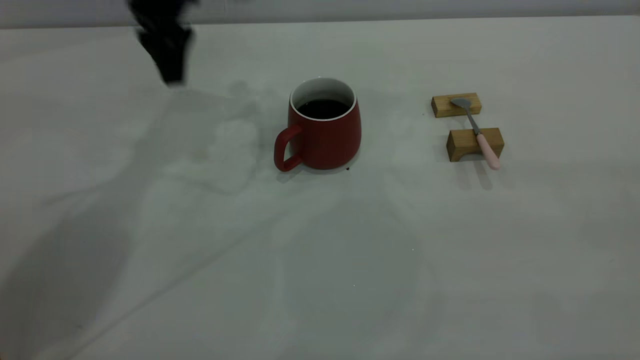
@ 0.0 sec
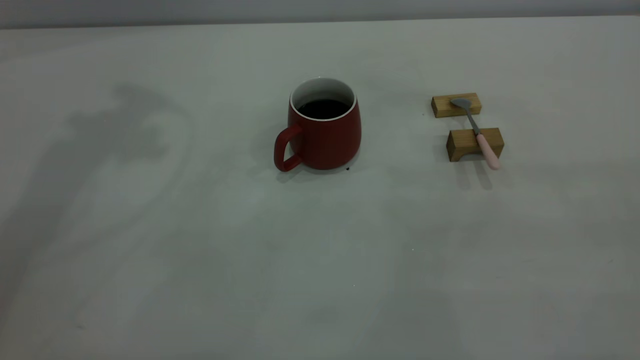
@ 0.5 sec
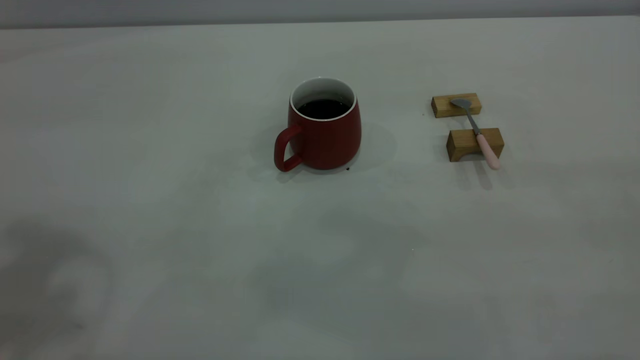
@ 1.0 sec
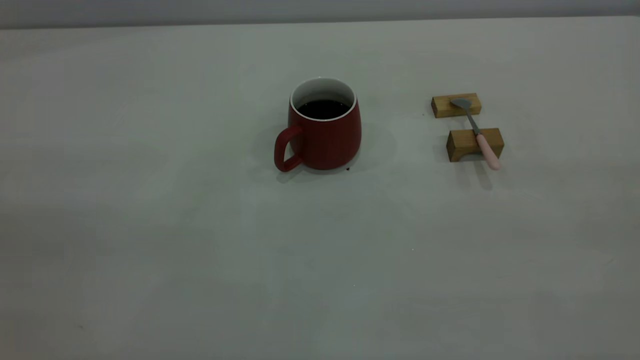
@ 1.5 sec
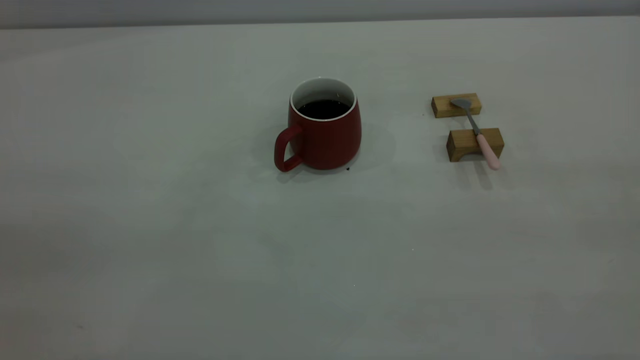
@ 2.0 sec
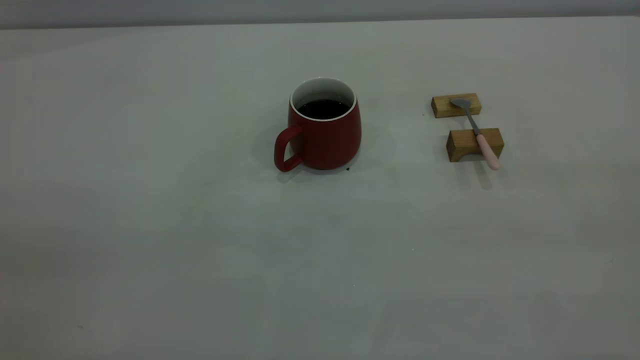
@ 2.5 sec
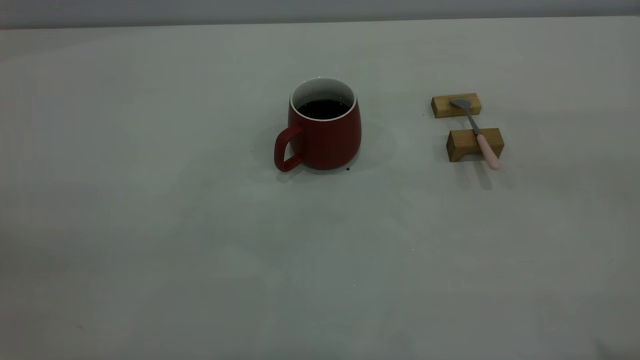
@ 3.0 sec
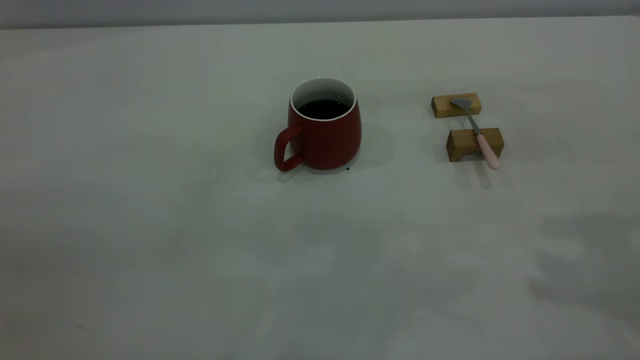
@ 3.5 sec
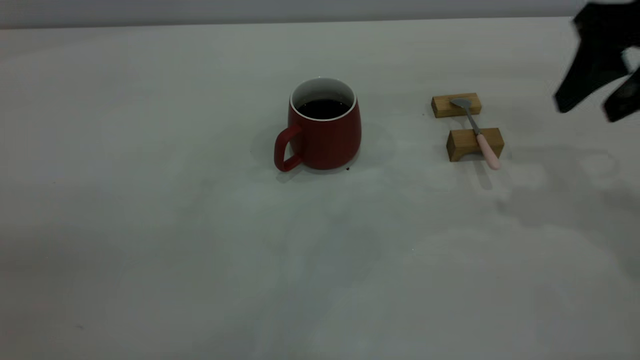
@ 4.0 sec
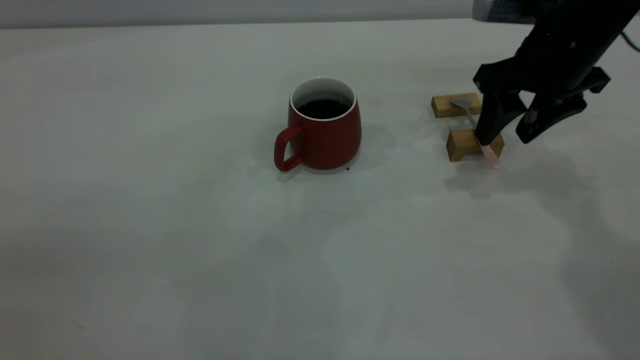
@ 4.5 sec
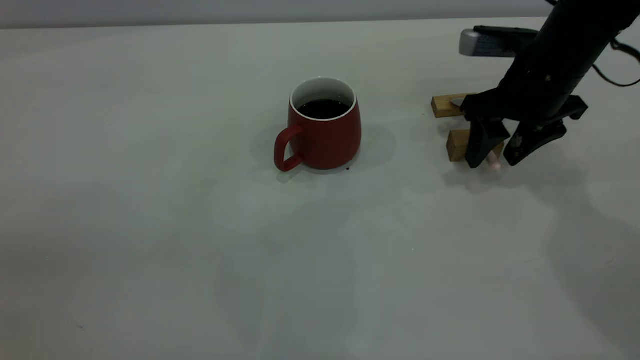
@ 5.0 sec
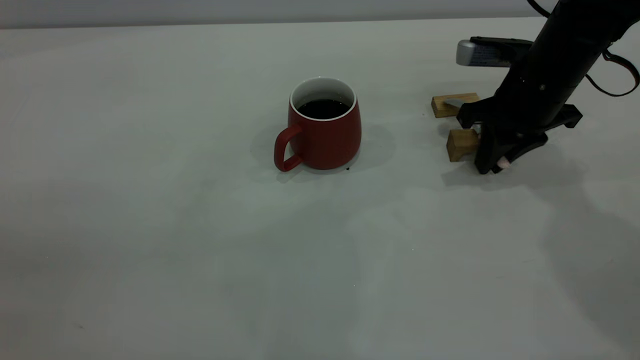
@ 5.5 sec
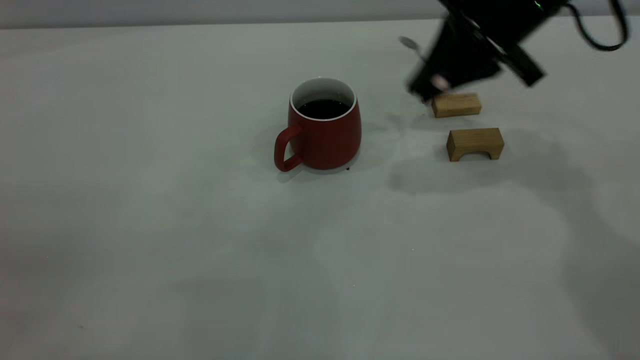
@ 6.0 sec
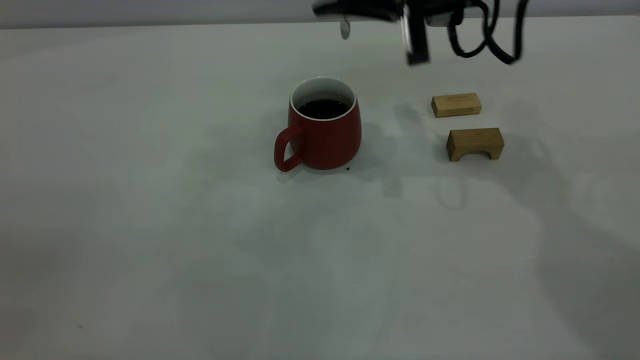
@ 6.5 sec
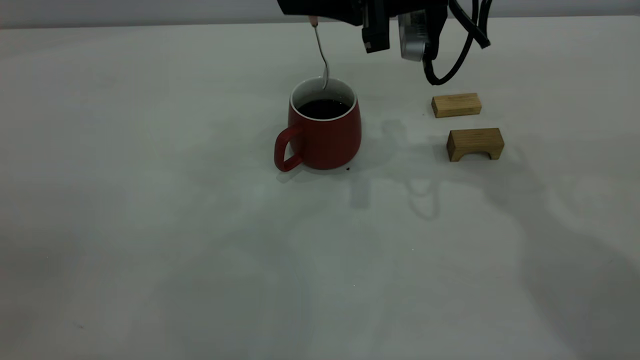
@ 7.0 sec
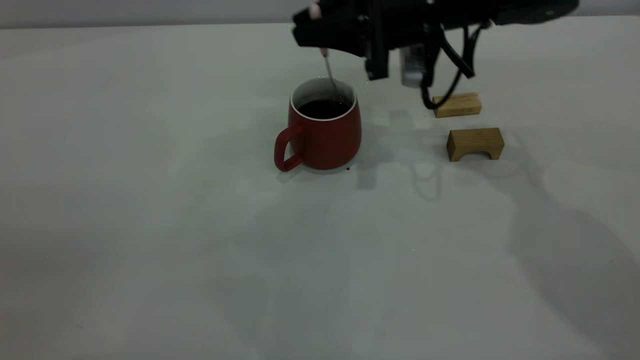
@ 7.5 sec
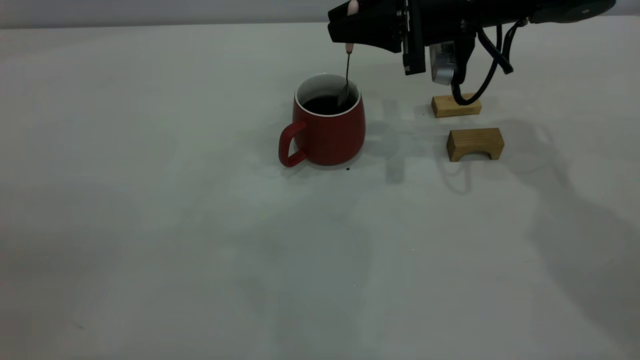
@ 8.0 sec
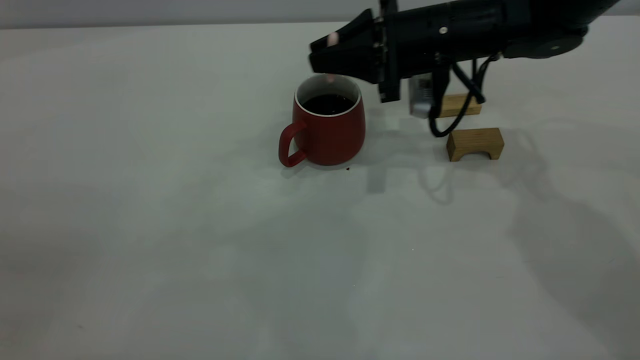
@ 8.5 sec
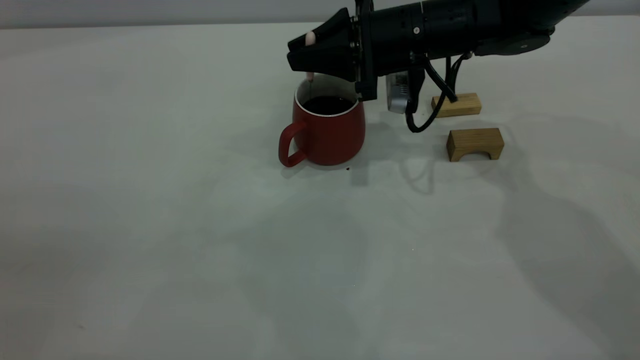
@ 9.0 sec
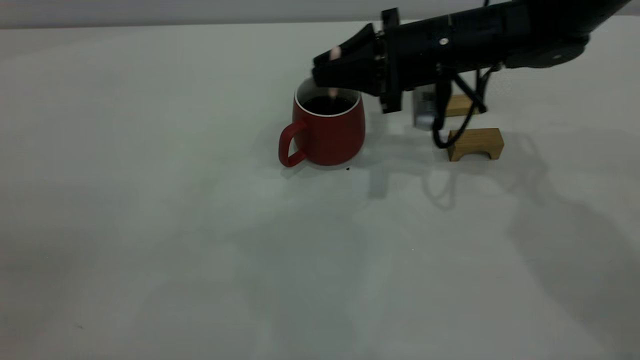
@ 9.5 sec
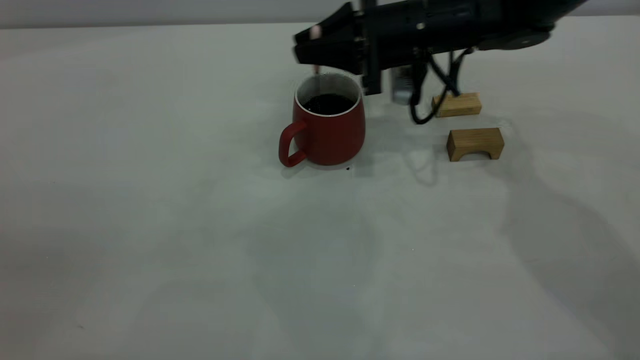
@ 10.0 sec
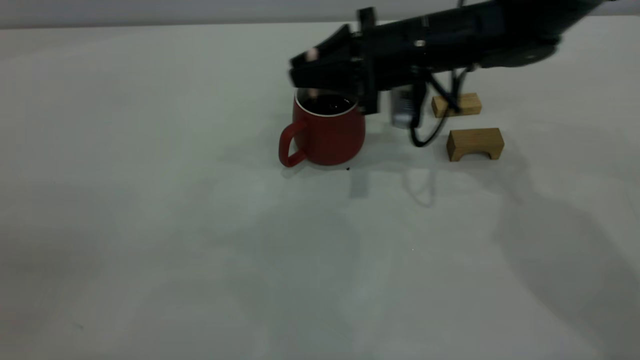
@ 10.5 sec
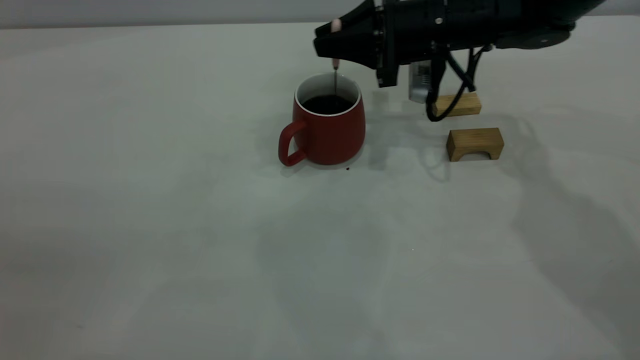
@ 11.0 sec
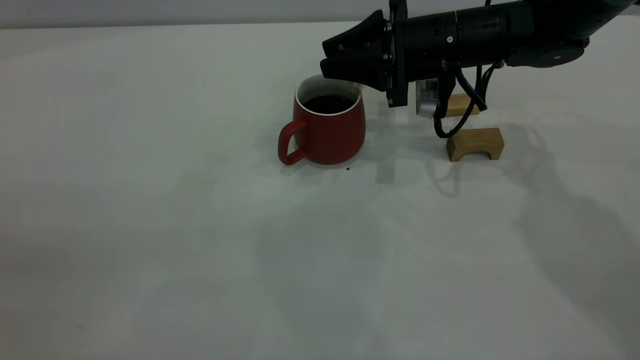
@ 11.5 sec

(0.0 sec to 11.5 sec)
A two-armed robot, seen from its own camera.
Step, 0.0 sec - 5.5 sec: Pick up the spoon.
0.0 sec - 2.0 sec: The left gripper is displaced backward by some 50 cm.
2.0 sec - 4.0 sec: The right gripper is displaced forward and downward by approximately 35 cm, and opens.
4.0 sec - 6.0 sec: The right gripper goes roughly 10 cm to the left and forward, goes downward and returns, some 10 cm each way, and closes up.
6.0 sec - 7.5 sec: The right gripper is displaced to the left by approximately 5 cm.
7.5 sec - 9.5 sec: There are only small adjustments of the grippers.
9.5 sec - 11.5 sec: The right gripper opens.

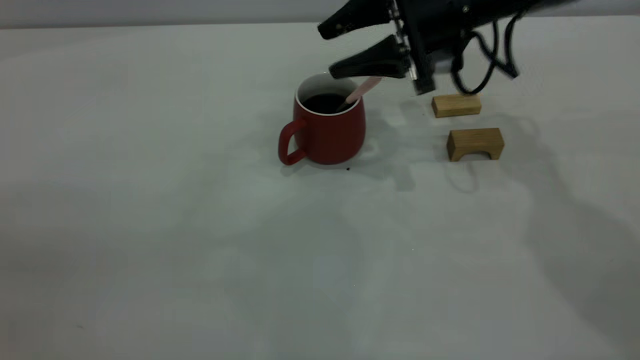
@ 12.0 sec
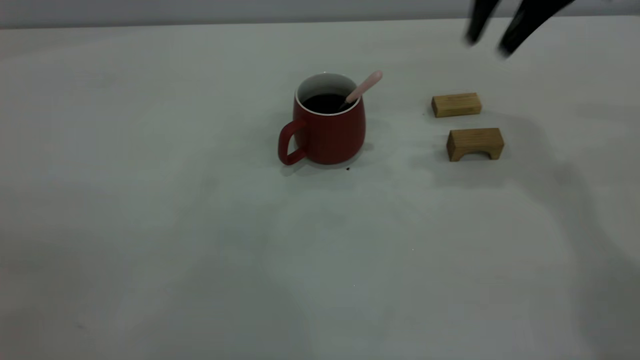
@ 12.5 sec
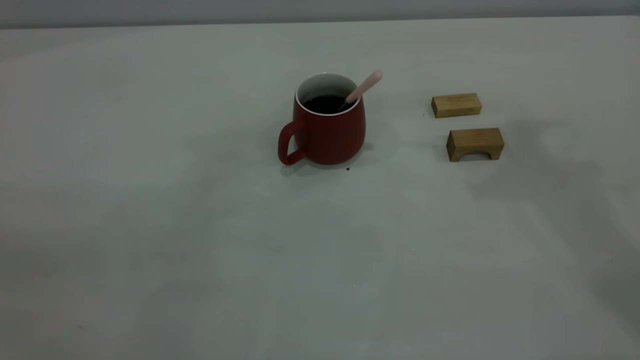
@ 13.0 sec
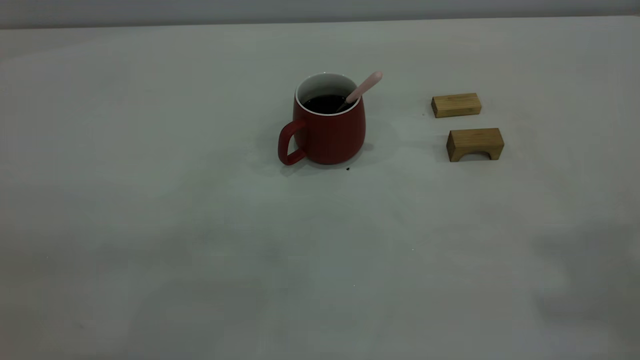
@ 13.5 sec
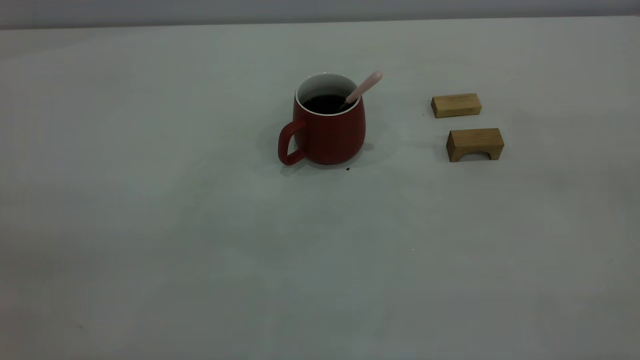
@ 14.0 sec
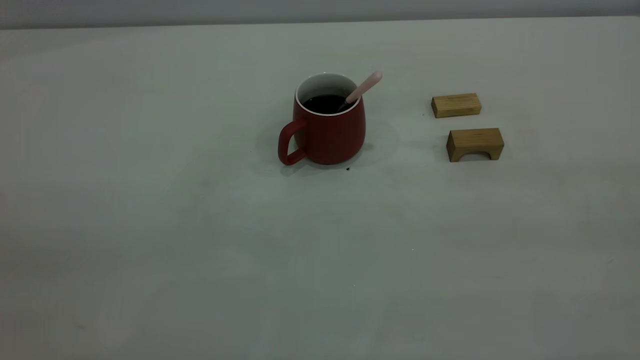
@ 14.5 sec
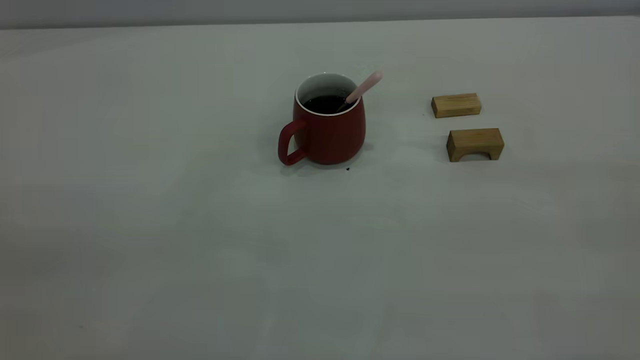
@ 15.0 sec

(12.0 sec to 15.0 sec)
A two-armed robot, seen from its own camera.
12.0 sec - 13.5 sec: The right gripper is displaced upward and backward by approximately 40 cm, and closes.
